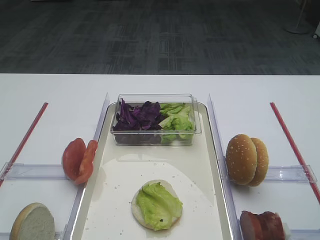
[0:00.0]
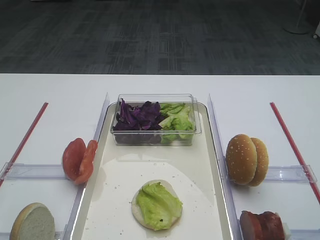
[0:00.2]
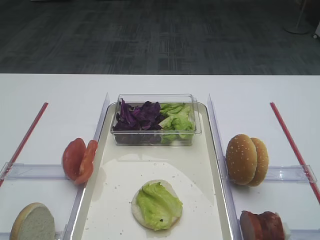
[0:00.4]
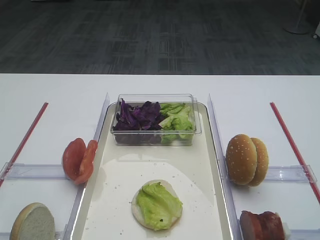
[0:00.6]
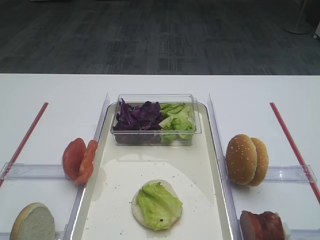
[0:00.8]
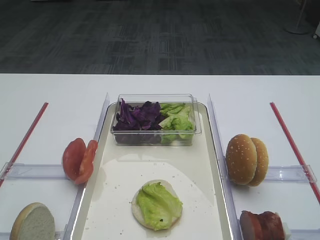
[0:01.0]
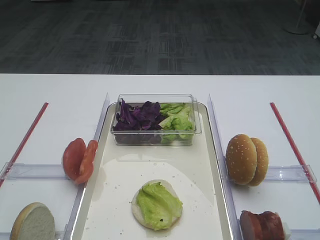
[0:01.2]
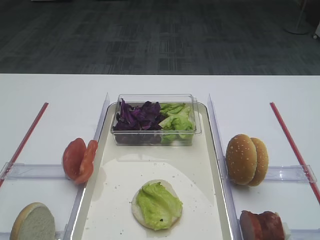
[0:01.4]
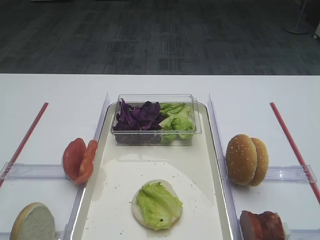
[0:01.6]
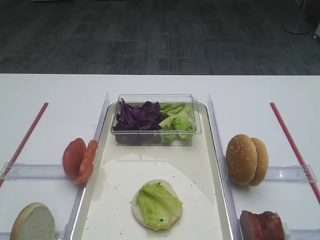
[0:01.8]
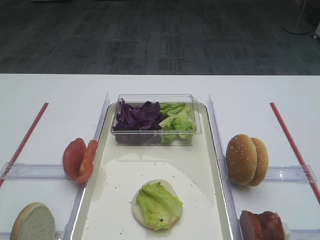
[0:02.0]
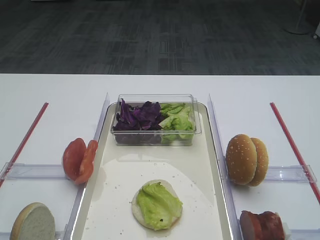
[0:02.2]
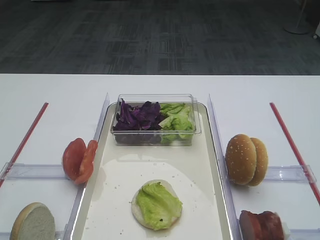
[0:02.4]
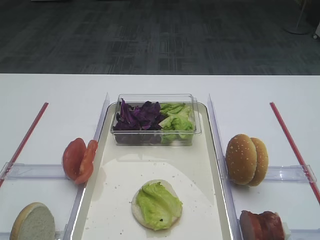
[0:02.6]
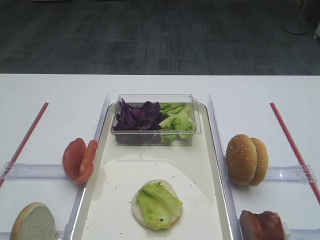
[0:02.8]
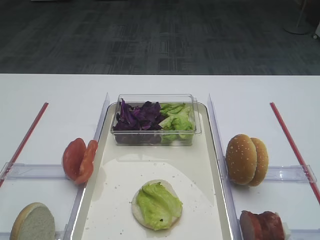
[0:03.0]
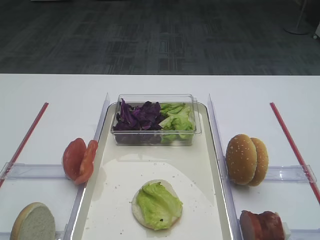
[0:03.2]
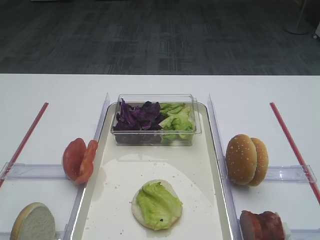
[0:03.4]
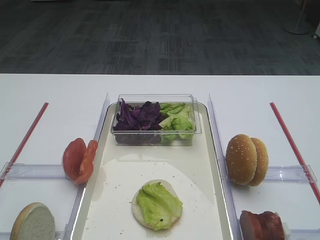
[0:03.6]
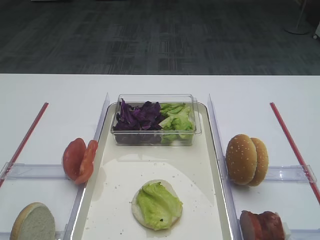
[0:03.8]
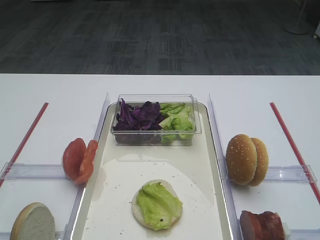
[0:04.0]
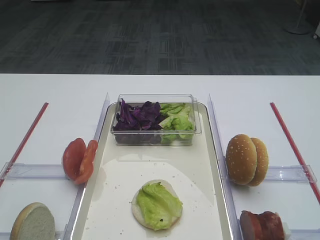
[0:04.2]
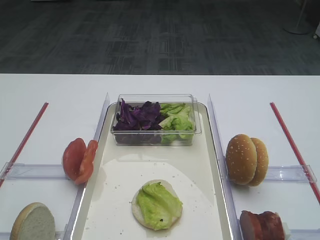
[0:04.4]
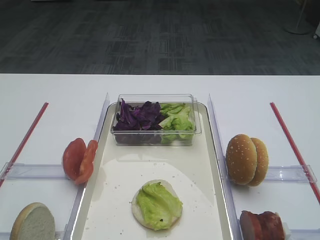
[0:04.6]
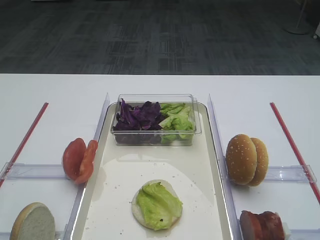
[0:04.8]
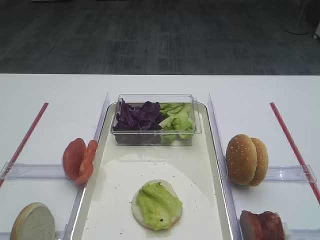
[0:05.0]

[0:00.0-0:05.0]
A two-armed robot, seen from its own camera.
0:03.4 to 0:05.0: Both grippers stay put.

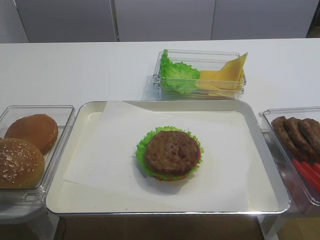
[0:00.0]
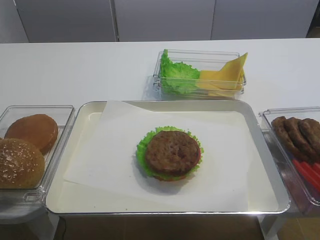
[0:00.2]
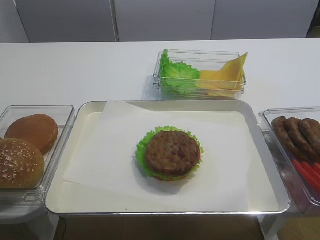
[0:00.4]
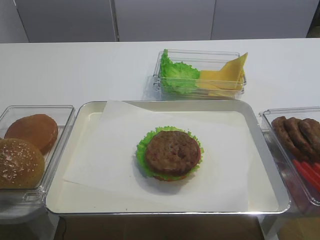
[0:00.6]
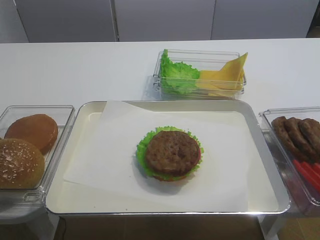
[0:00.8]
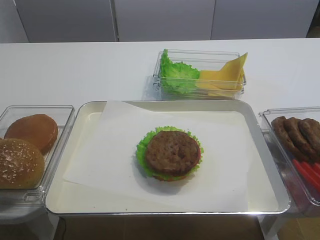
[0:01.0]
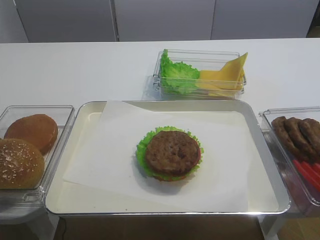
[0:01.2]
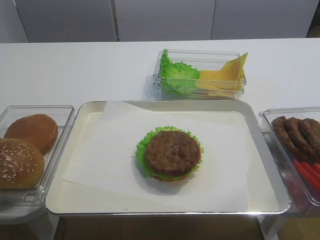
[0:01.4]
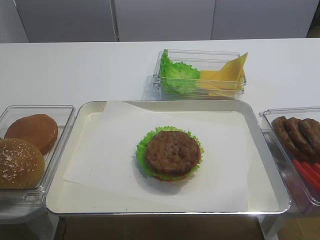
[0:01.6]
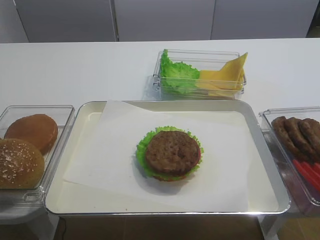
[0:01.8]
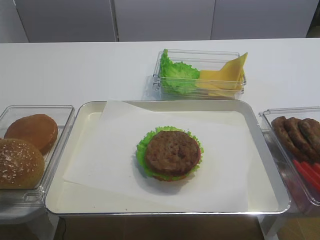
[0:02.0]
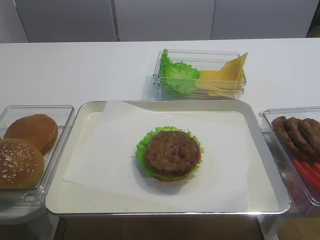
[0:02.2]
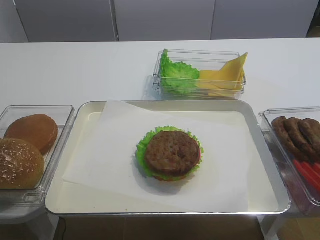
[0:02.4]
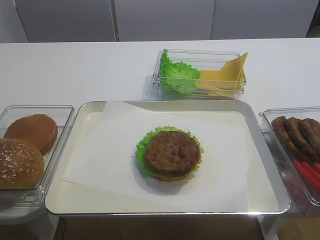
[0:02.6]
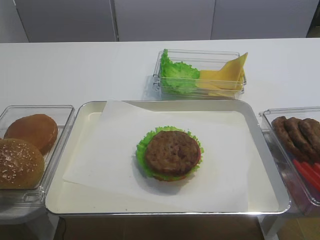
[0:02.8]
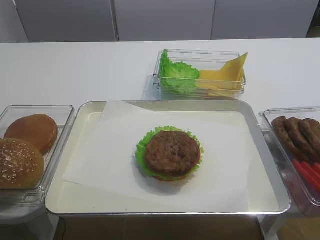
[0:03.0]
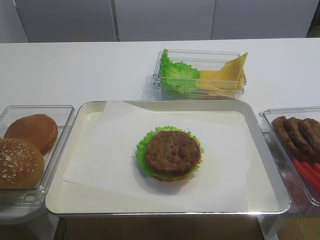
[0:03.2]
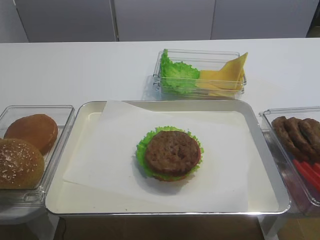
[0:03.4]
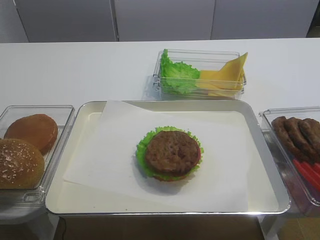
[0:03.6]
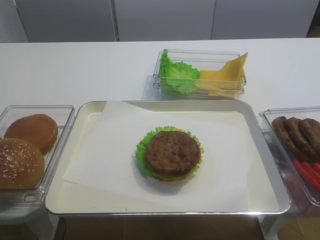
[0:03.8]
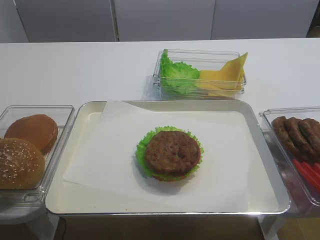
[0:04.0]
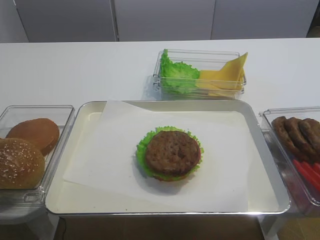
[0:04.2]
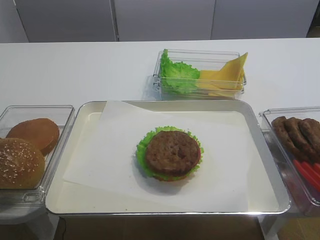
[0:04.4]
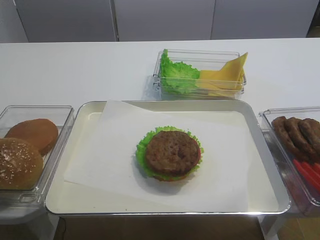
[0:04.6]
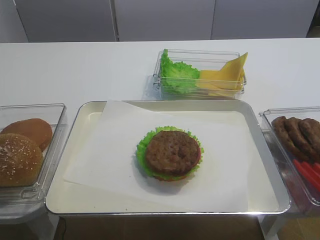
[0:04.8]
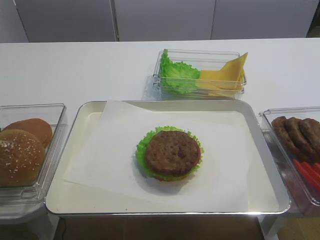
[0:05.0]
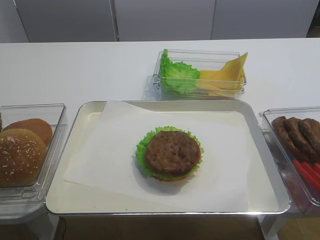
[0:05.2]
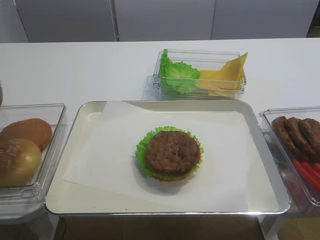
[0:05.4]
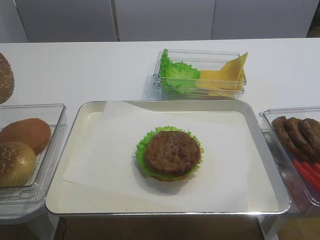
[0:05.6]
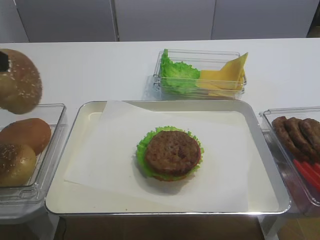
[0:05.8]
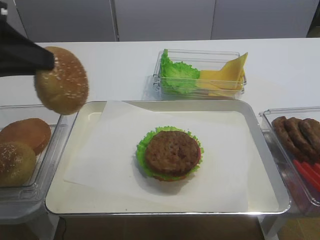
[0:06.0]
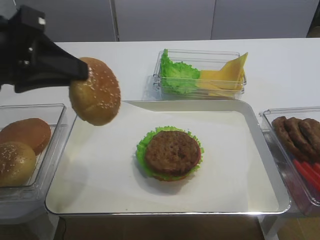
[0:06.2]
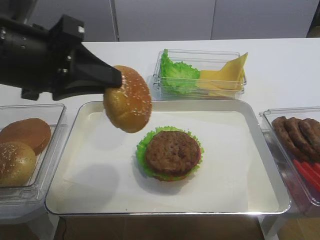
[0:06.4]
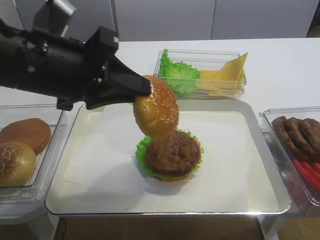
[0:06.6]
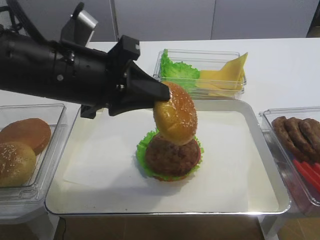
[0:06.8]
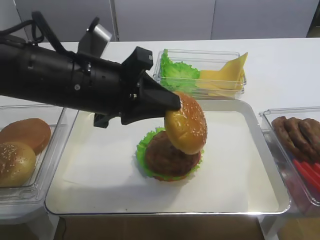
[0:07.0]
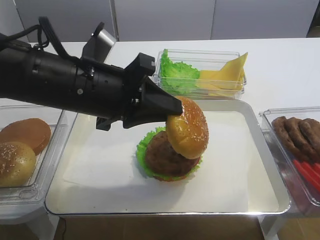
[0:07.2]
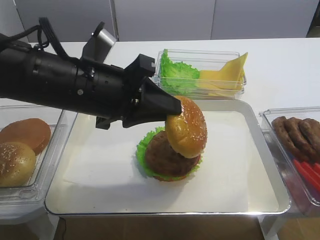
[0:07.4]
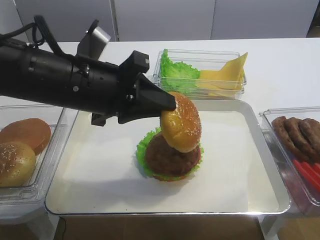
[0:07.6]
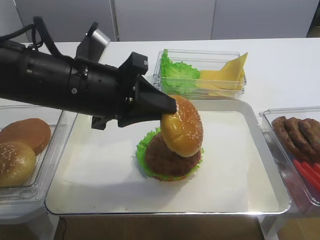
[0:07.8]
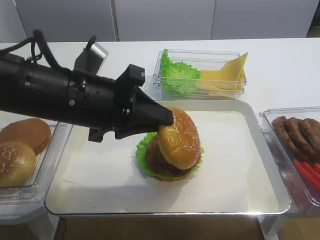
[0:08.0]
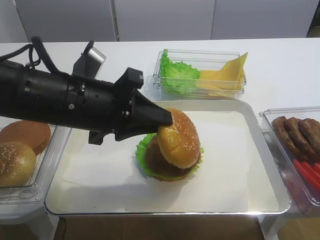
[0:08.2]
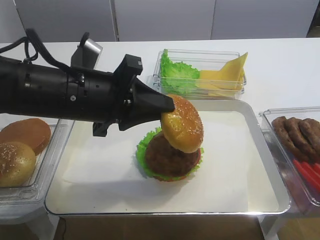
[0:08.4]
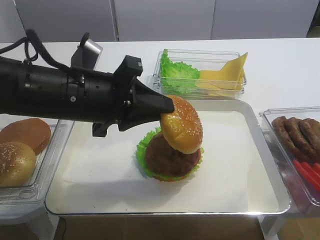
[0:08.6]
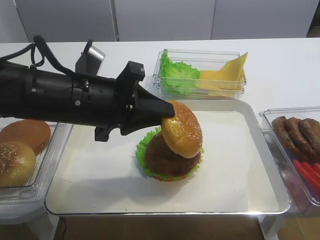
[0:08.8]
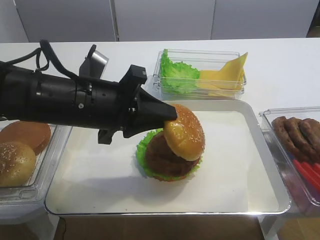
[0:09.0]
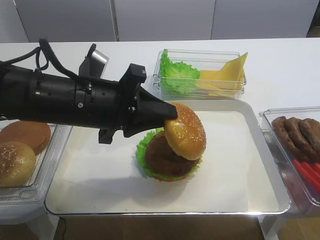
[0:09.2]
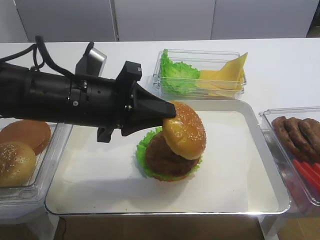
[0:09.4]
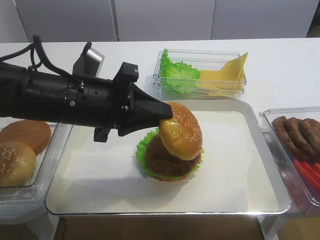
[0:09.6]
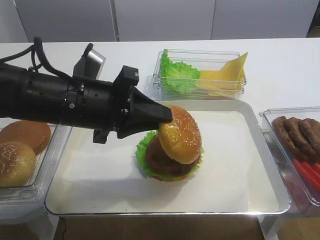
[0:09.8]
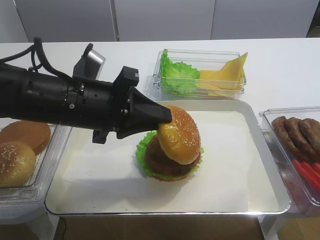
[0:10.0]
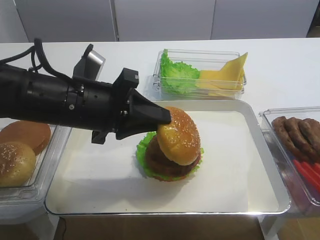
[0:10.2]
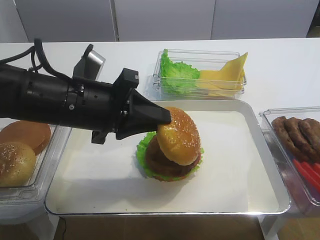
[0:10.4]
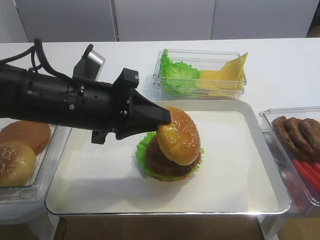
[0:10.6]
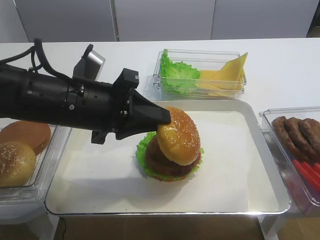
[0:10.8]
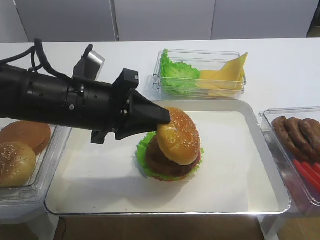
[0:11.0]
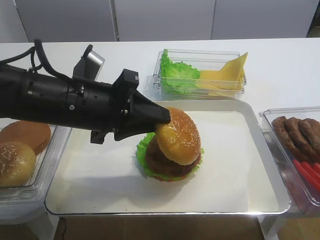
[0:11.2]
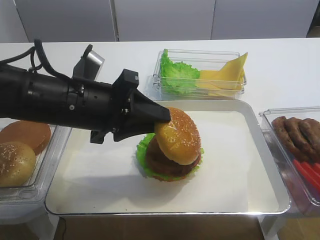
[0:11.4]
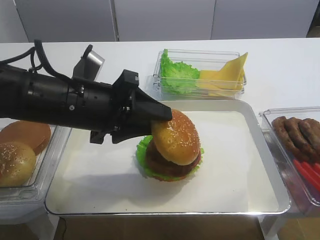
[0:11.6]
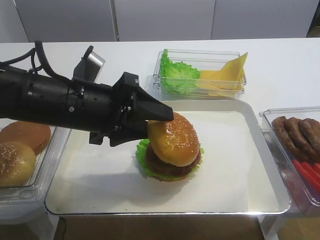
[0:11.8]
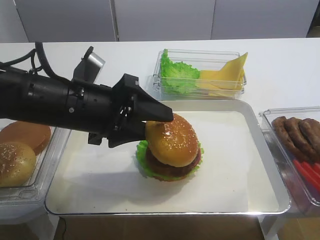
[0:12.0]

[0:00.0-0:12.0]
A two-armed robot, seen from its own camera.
Step, 0:00.0 to 0:05.2: Pick up the hamburger lid with the left gripper.
0:04.4 to 0:06.0: The left gripper heads to the right and upward, covering some 15 cm.
0:06.0 to 0:07.6: The left gripper is displaced to the right and downward by some 15 cm.
0:07.6 to 0:09.0: The grippers make only small movements.
0:09.0 to 0:10.4: Neither gripper changes place.
0:10.4 to 0:12.0: The left gripper opens its fingers.

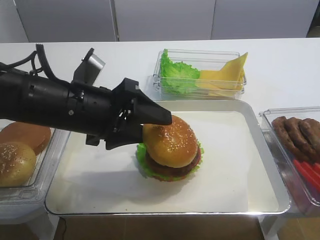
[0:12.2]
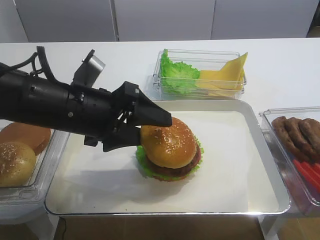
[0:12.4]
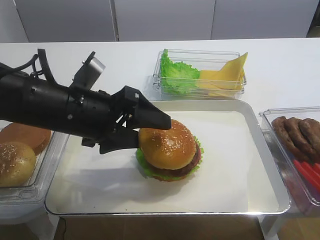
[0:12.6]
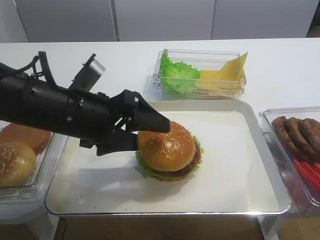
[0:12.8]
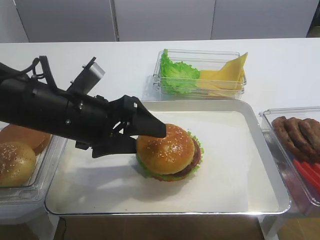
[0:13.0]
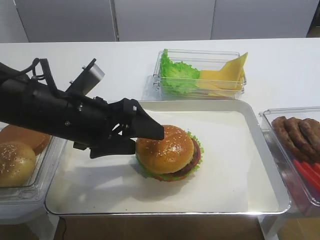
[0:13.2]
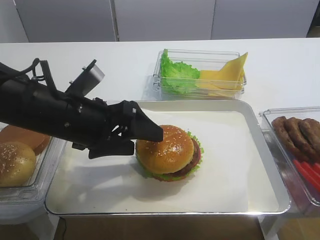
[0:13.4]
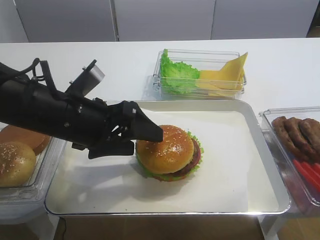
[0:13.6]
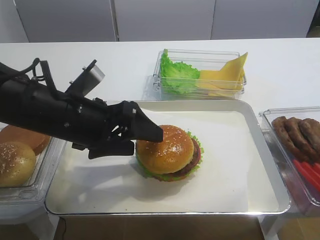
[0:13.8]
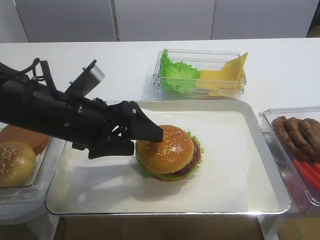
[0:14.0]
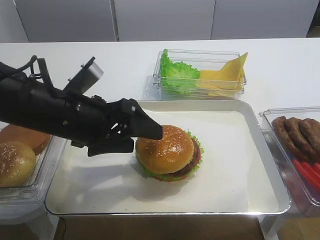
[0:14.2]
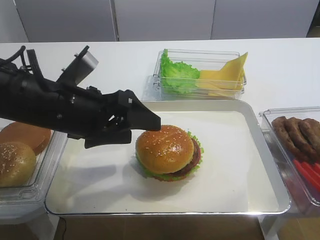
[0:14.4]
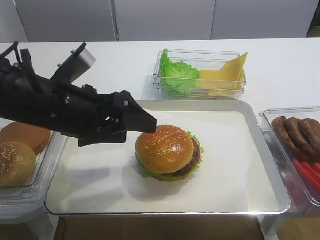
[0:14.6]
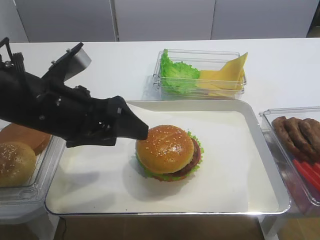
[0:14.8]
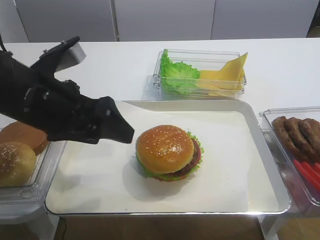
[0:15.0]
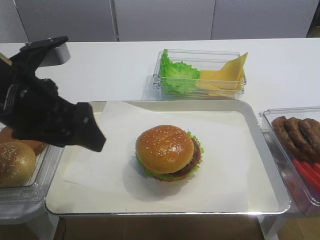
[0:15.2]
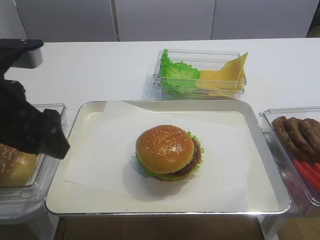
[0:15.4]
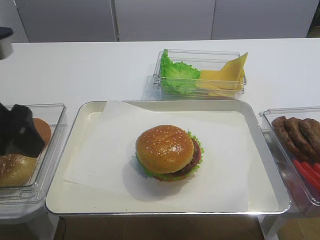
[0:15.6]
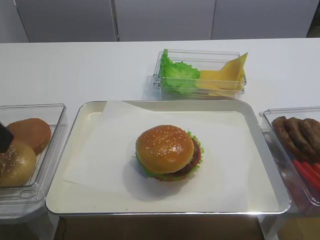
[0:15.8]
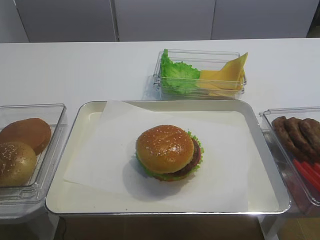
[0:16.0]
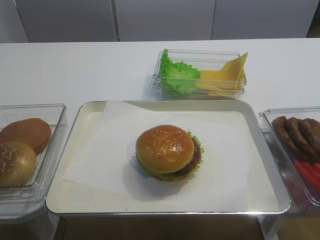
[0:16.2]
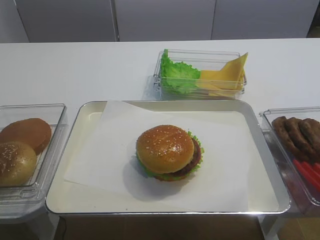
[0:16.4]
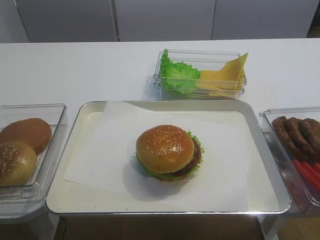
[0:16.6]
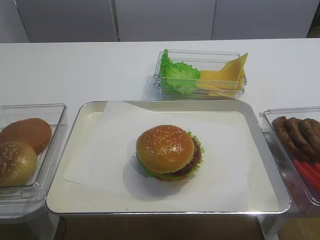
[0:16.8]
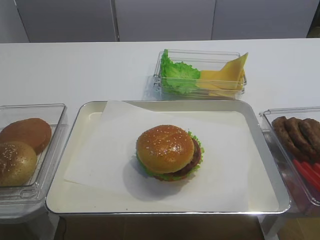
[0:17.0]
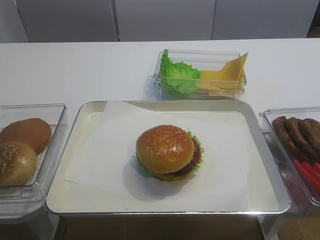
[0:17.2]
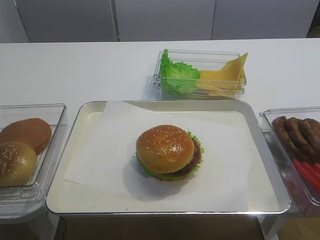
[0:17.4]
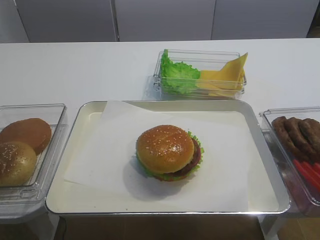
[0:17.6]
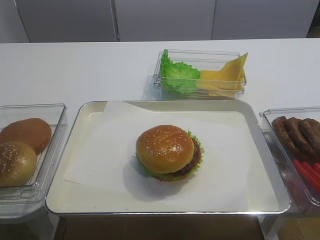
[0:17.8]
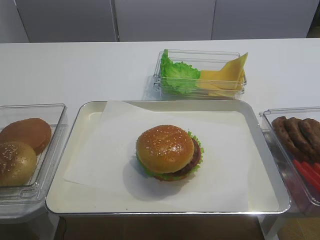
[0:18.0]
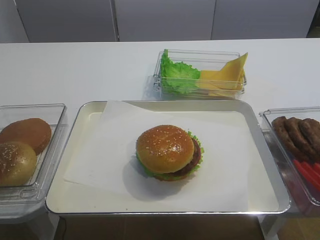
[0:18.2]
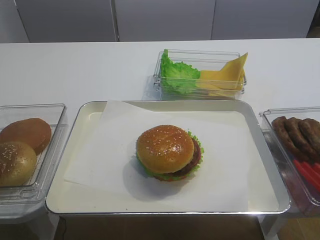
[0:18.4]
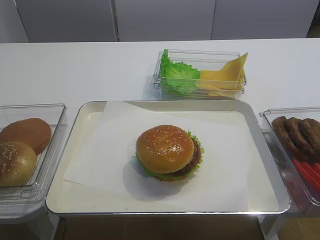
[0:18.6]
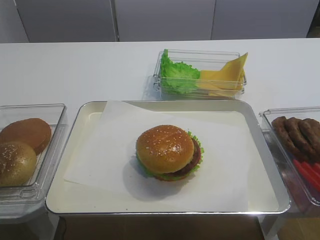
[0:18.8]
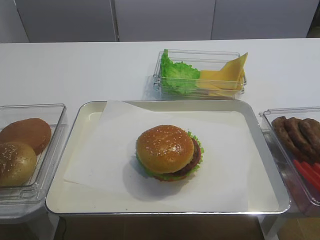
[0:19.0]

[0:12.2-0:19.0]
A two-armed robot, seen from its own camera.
Step, 0:12.2 to 0:14.8: Place the hamburger lid on the cutlet slice with the left gripper.
0:12.2 to 0:13.6: The grippers make only small movements.
0:13.6 to 0:15.0: The left gripper moves approximately 5 cm.
0:15.0 to 0:16.2: The left gripper travels backward, to the left and upward by about 25 cm.
